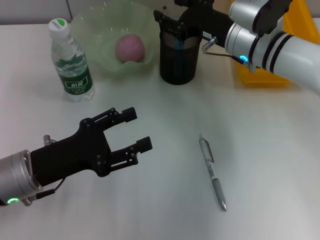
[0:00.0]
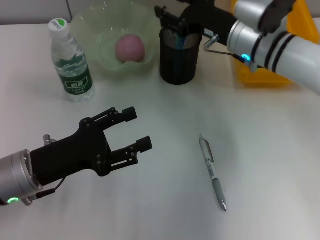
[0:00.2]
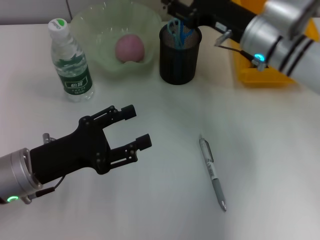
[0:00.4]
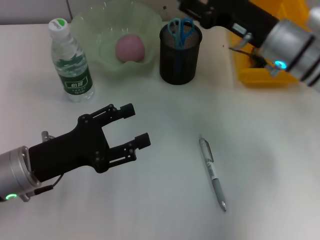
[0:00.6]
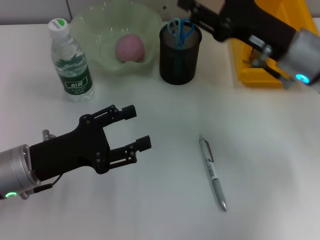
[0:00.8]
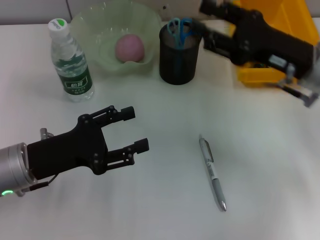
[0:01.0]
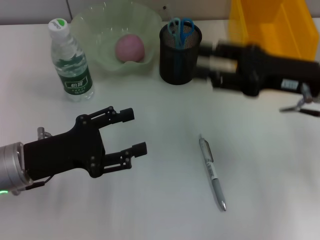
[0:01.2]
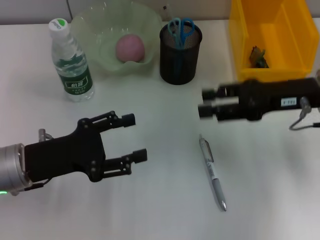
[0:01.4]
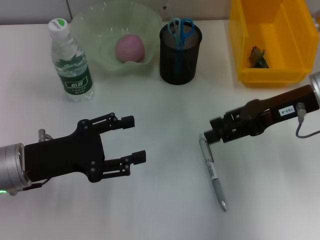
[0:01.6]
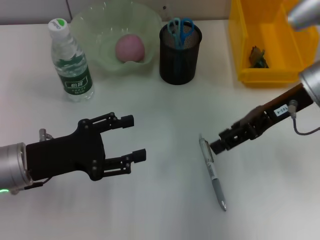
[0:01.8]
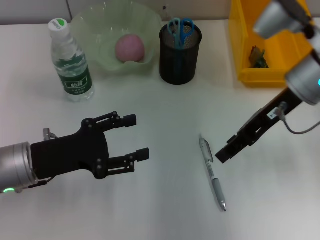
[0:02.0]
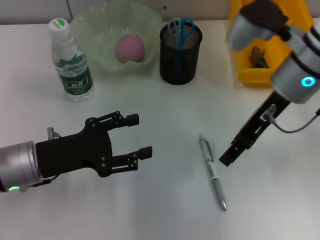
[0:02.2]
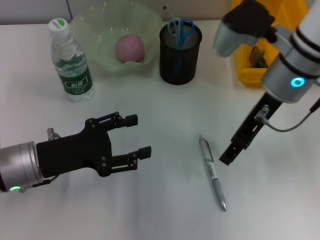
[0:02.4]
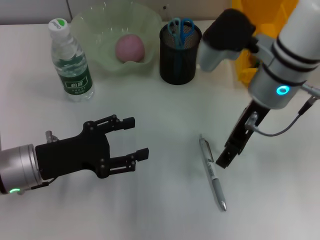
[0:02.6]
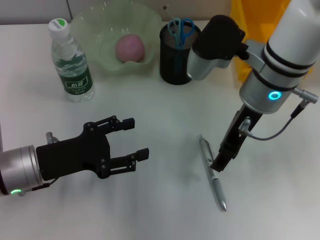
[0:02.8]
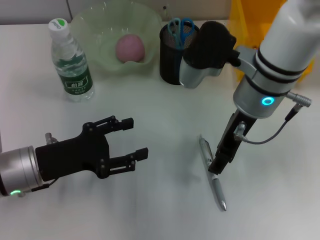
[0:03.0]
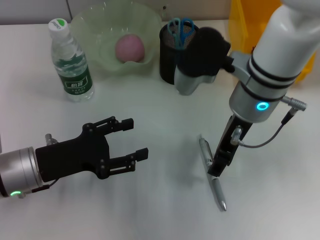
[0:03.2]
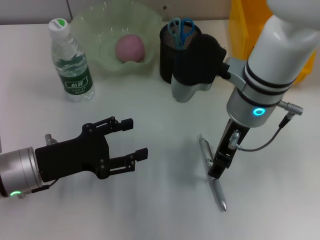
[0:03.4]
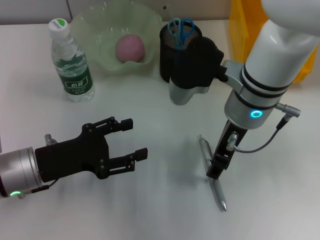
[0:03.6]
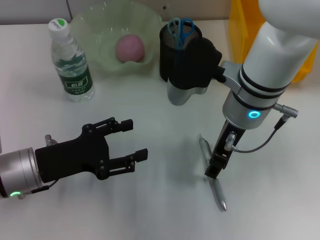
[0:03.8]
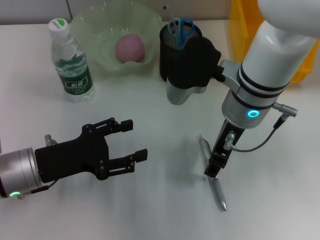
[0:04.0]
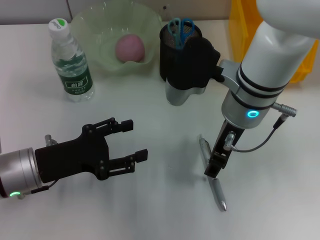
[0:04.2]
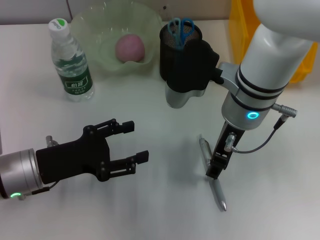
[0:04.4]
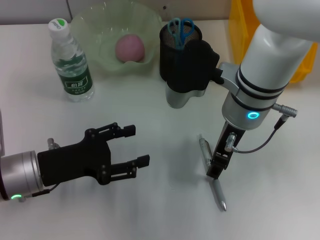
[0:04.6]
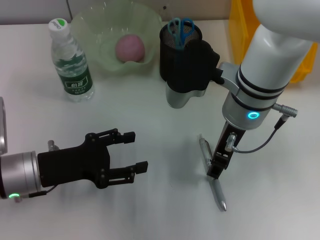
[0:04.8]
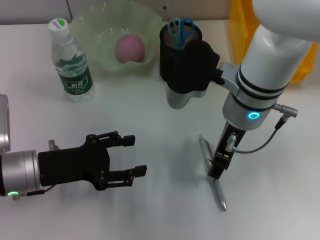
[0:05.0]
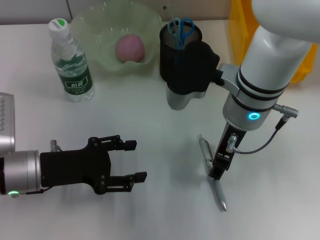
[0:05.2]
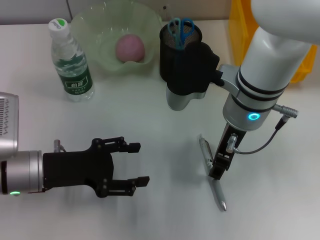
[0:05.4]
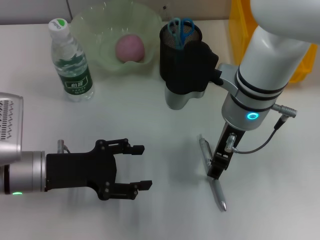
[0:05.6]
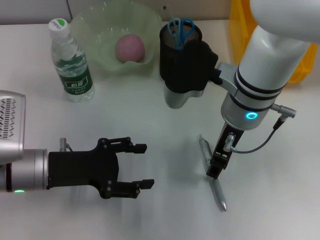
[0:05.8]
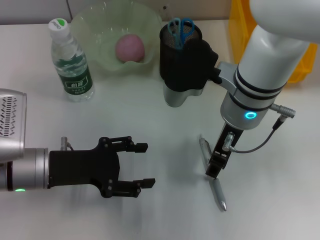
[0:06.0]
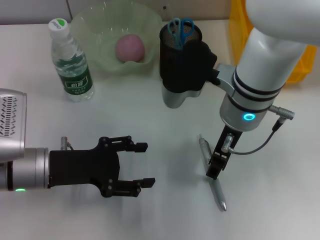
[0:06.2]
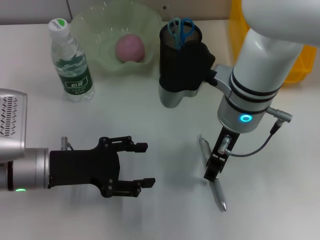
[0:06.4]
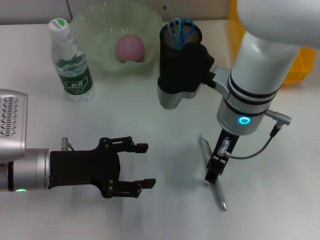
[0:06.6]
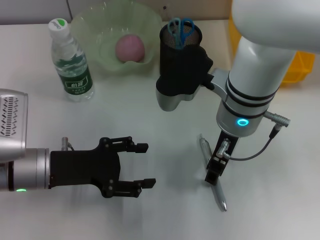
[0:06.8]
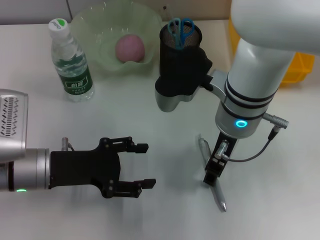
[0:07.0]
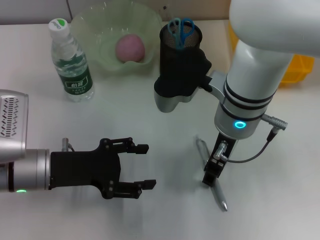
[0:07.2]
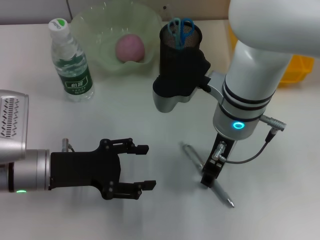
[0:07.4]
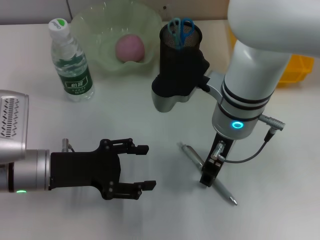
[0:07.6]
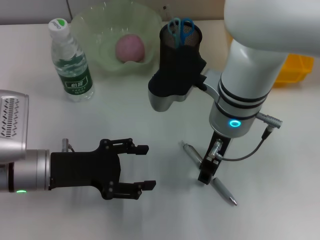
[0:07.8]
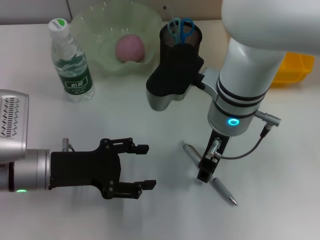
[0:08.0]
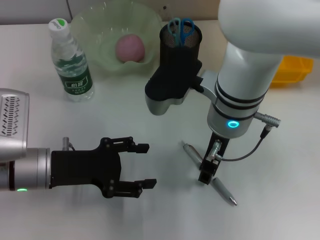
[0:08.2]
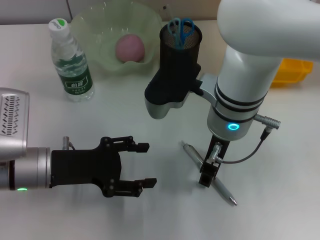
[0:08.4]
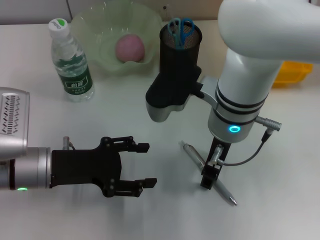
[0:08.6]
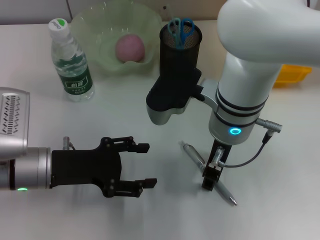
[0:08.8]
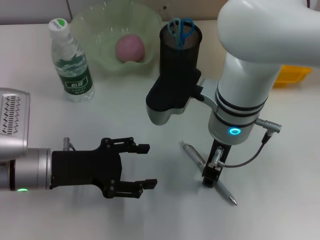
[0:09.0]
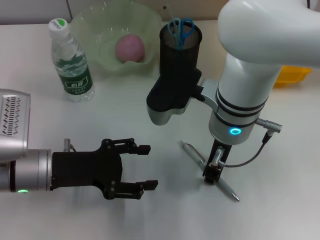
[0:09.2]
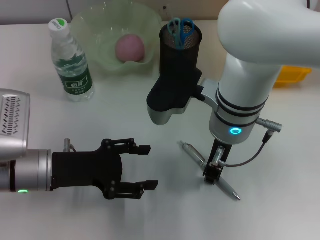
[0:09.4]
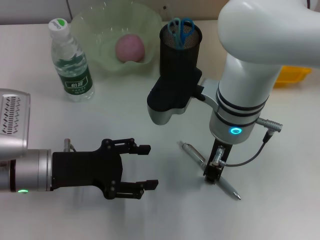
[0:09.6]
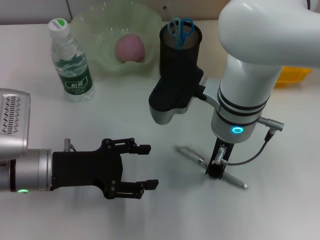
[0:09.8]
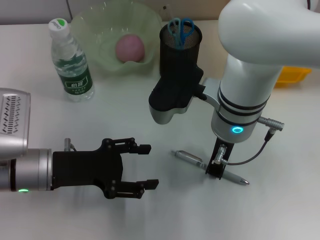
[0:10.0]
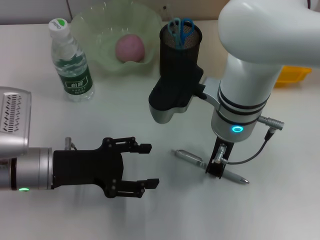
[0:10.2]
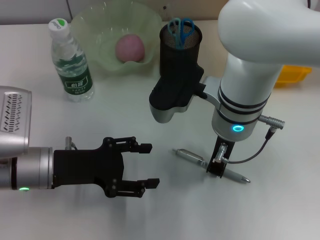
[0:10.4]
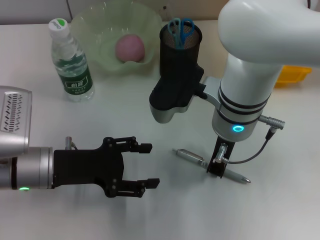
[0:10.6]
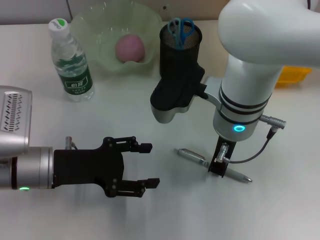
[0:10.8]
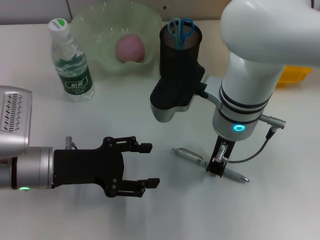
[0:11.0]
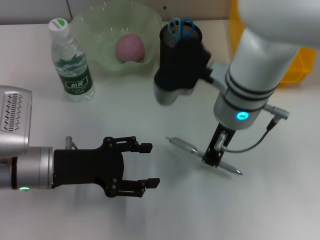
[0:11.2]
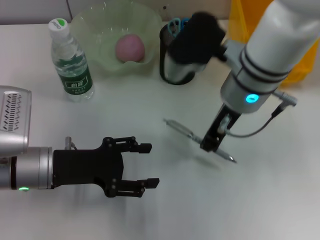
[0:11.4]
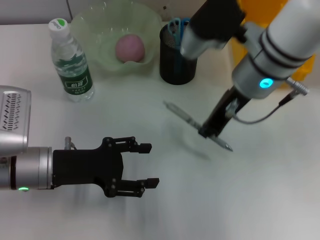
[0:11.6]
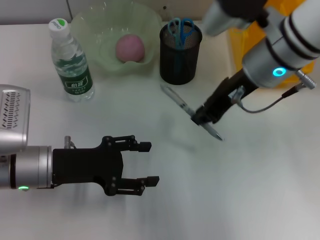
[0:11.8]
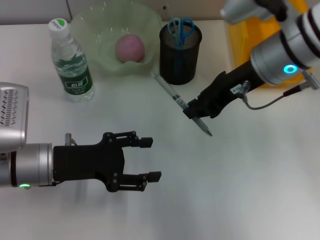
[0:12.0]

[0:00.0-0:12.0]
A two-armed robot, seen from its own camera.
Step, 0:00.0 to 0:10.4: Grab the gray spring-action pen with the right hand.
0:00.0 to 0:01.6: The right gripper travels to the right and backward by roughly 10 cm.
0:01.6 to 0:03.0: The right gripper goes roughly 15 cm to the left.
0:03.0 to 0:09.0: There are only small adjustments of the grippers.
0:09.0 to 0:10.4: The right gripper closes.
0:10.4 to 0:12.0: The right gripper travels to the right and upward by about 10 cm.

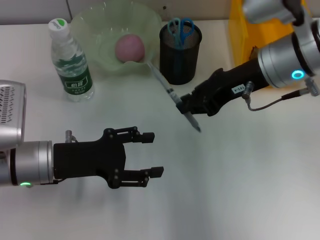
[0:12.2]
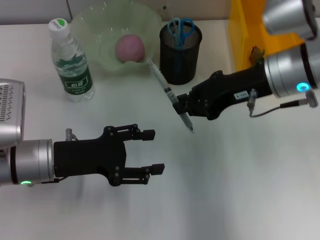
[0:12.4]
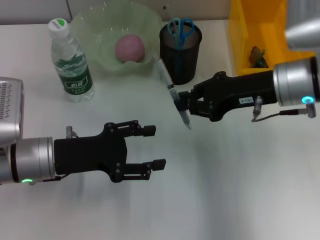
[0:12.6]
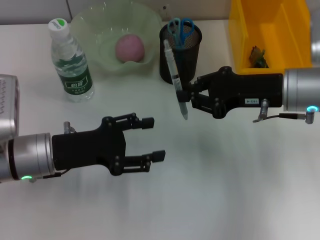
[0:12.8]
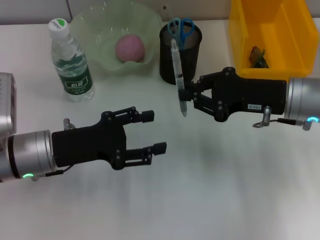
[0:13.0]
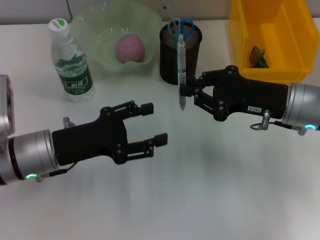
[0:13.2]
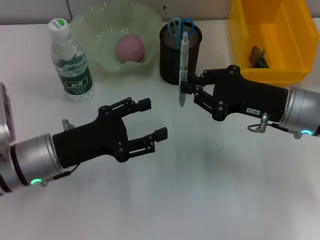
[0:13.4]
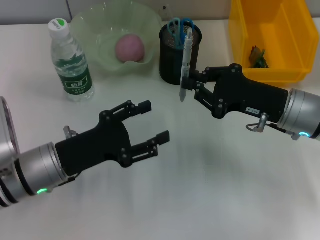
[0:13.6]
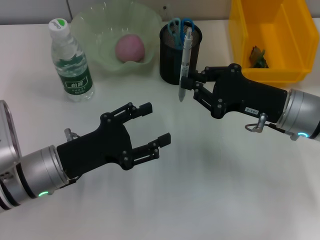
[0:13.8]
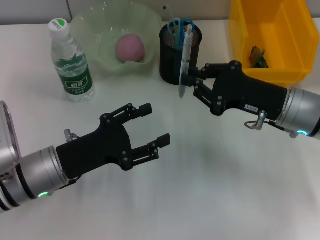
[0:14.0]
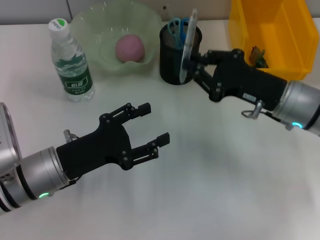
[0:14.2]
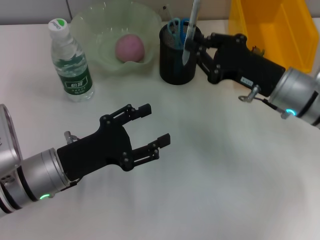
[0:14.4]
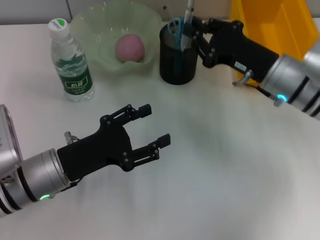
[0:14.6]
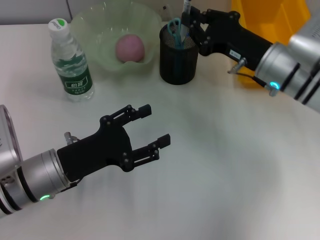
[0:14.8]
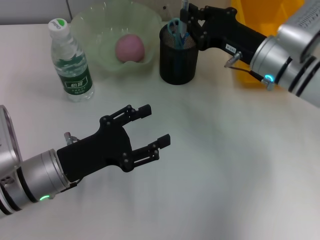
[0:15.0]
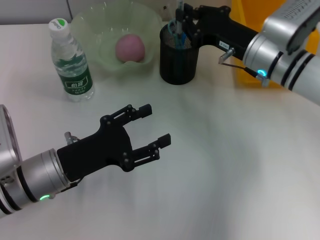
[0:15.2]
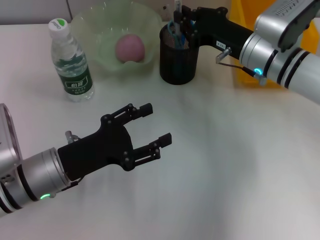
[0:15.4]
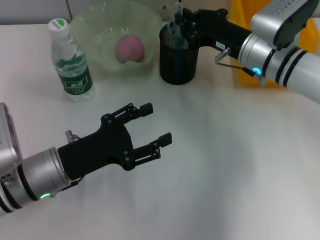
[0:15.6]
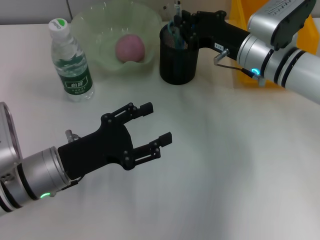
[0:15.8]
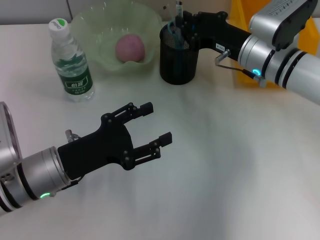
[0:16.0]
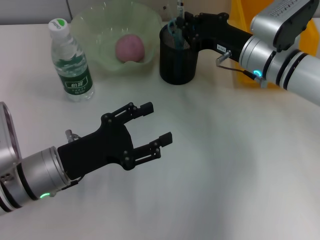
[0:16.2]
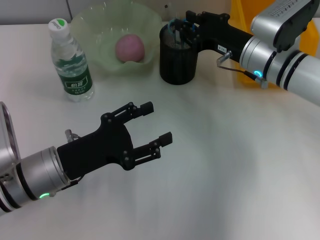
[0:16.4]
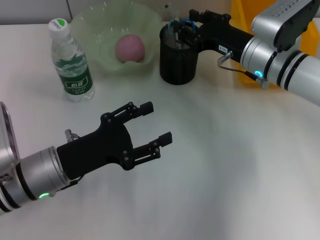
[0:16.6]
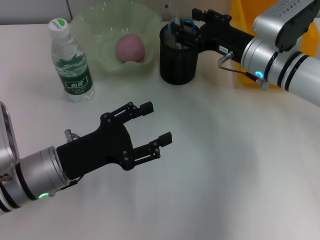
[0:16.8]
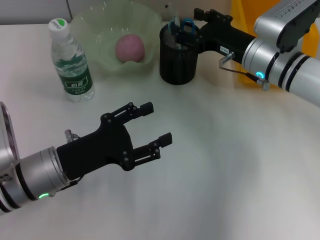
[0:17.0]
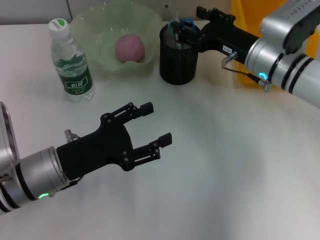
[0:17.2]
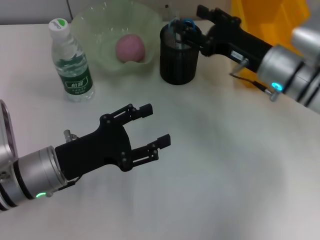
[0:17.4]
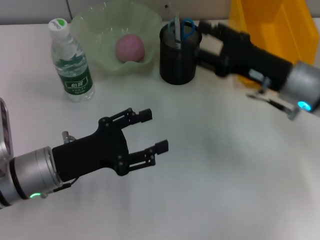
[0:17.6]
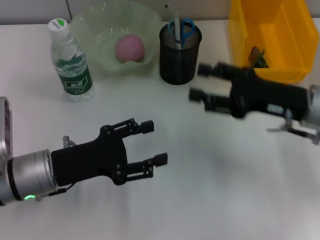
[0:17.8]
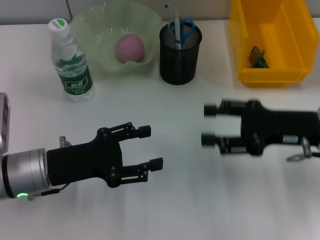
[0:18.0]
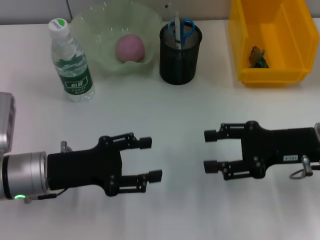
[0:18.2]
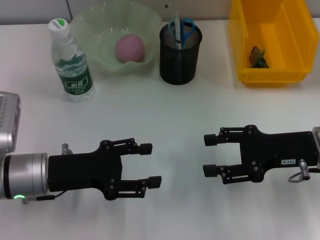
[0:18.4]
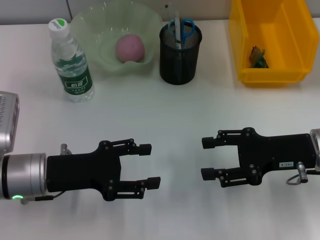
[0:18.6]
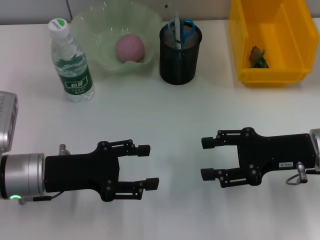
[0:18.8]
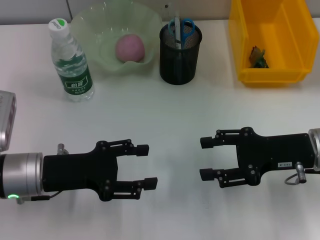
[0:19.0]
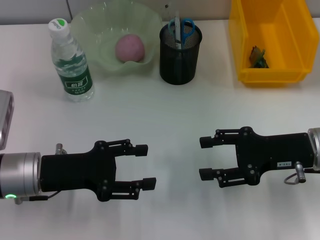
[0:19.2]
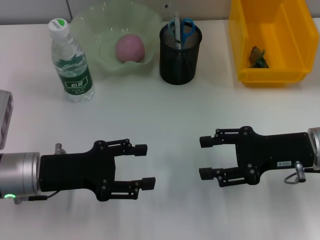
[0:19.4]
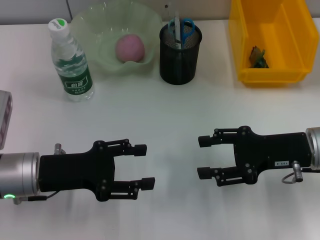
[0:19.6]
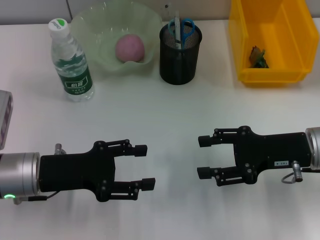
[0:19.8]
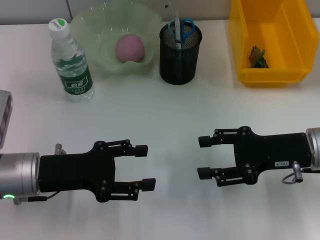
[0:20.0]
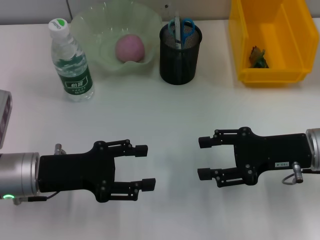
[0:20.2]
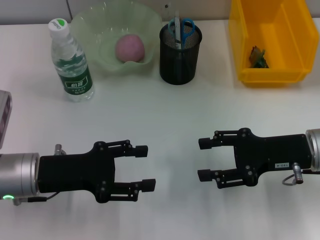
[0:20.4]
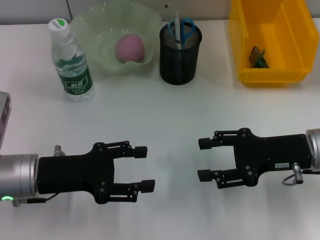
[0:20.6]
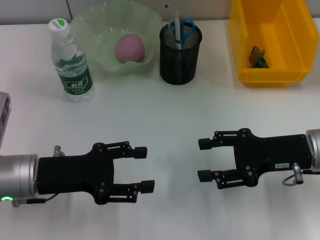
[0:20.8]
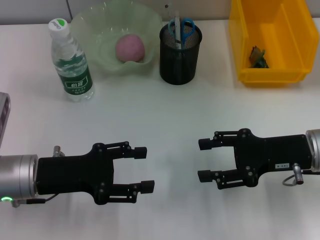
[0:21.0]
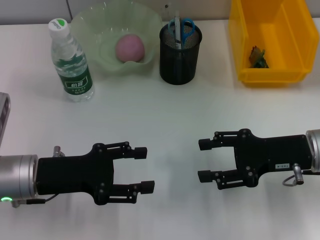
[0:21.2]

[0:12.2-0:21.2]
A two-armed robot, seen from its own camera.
Step, 0:12.2 to 0:16.4: Place the gray spring-action pen into the pen holder with the right hand.
0:12.2 to 0:13.8: The right gripper is displaced downward by some 10 cm.
0:13.8 to 0:15.2: The right gripper shifts roughly 10 cm forward.
0:15.2 to 0:16.6: The grippers make only small movements.
0:16.6 to 0:18.2: The right gripper is displaced backward and to the right by about 15 cm, and opens its fingers.
0:18.2 to 0:19.8: Neither gripper changes place.
0:19.8 to 0:21.2: Both grippers stay put.
